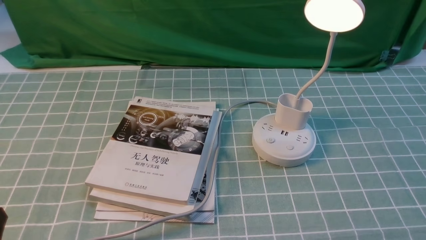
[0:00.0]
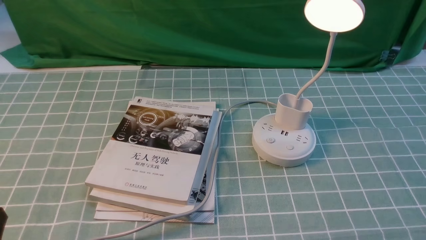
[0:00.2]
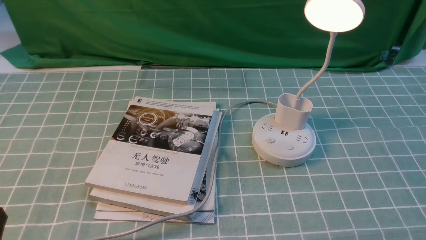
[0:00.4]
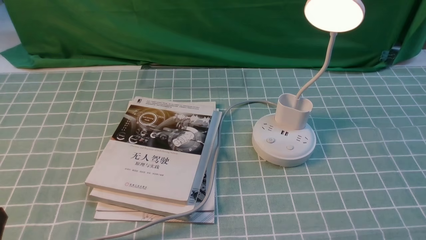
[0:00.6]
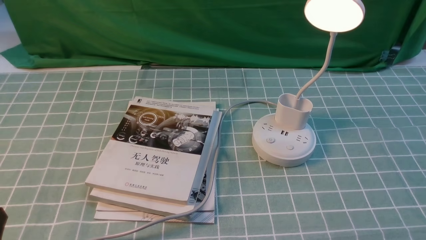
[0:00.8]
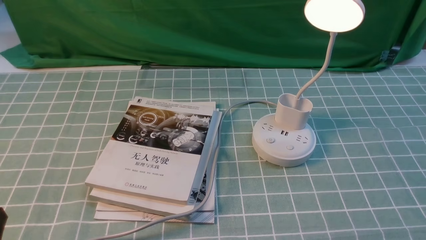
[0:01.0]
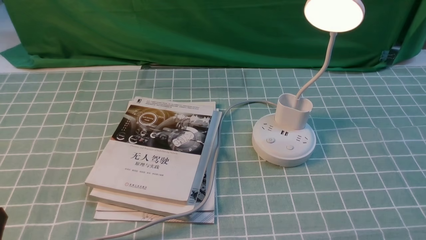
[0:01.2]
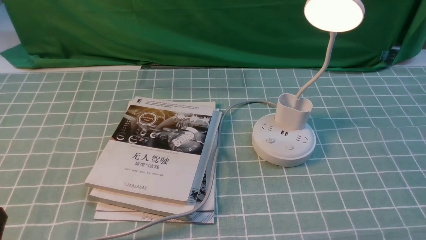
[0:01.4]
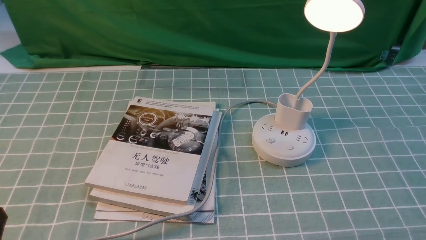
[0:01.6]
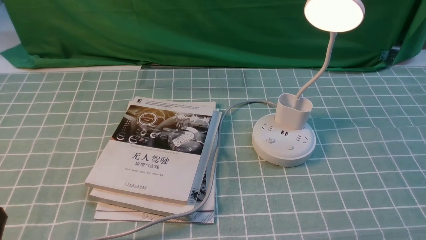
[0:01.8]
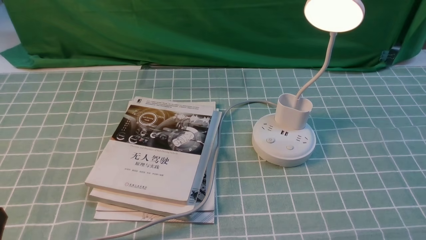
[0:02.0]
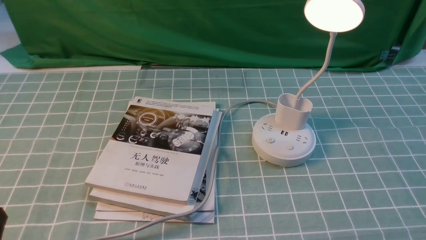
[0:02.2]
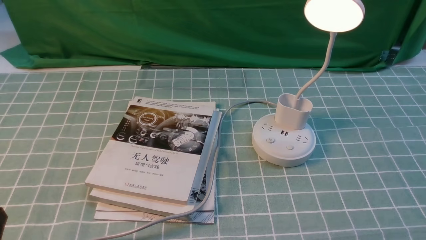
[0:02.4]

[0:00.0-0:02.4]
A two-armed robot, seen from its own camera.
0:00.0 to 0:02.4: Both grippers stay about where they are.
